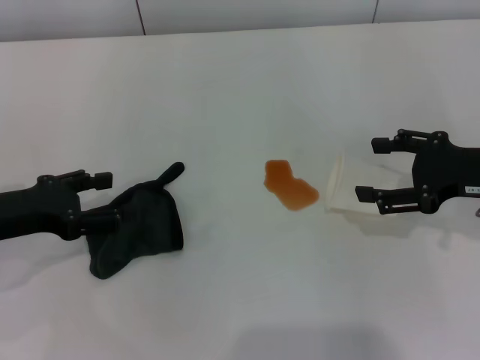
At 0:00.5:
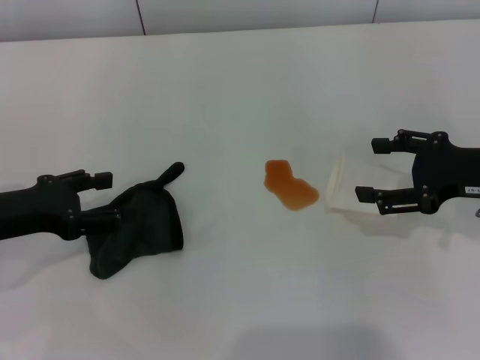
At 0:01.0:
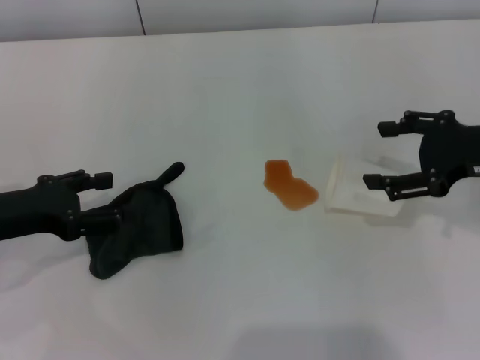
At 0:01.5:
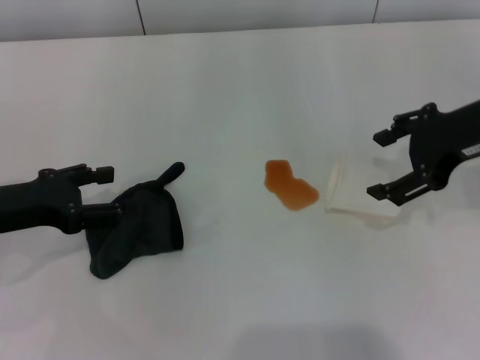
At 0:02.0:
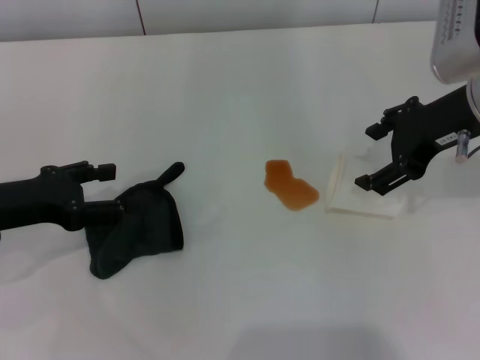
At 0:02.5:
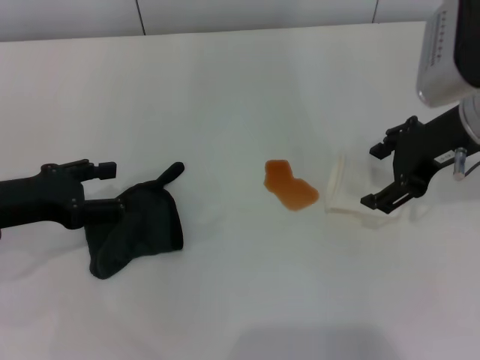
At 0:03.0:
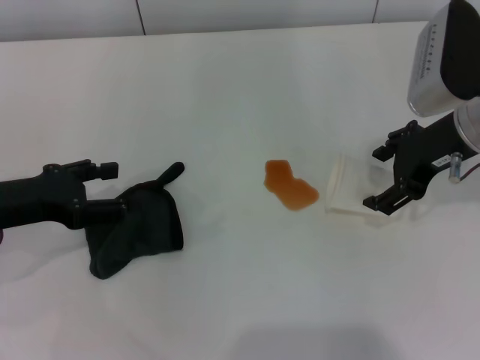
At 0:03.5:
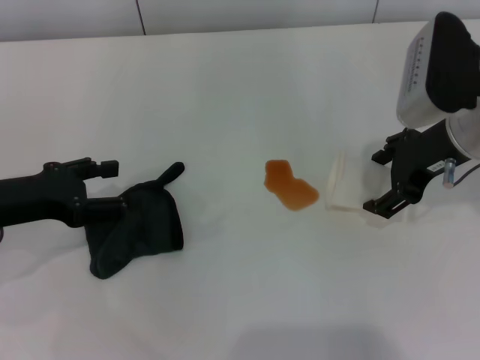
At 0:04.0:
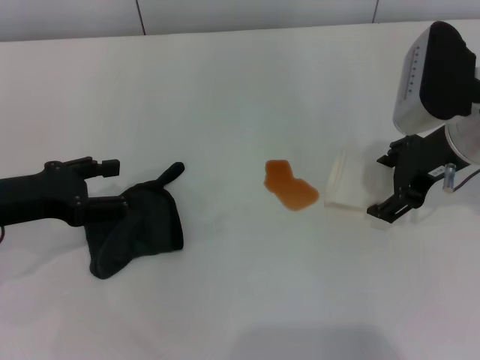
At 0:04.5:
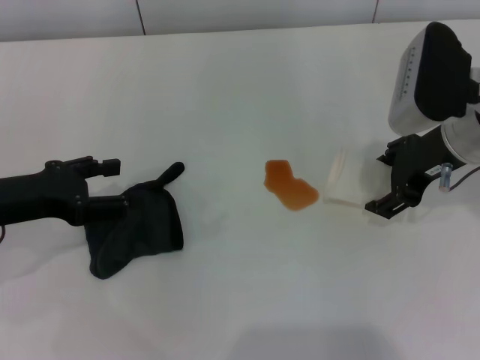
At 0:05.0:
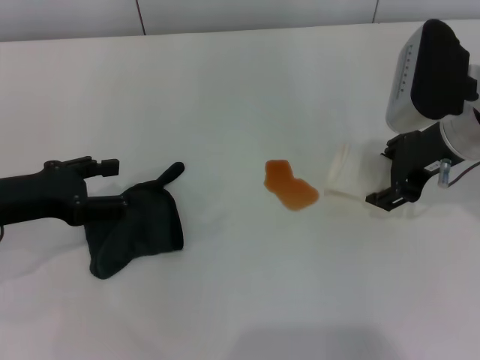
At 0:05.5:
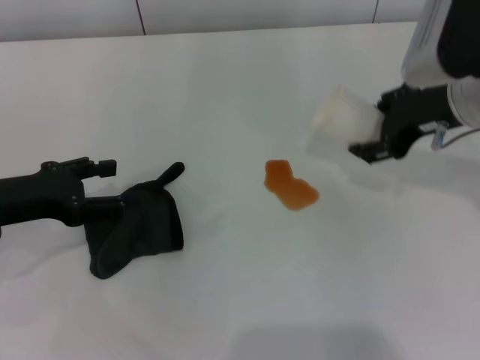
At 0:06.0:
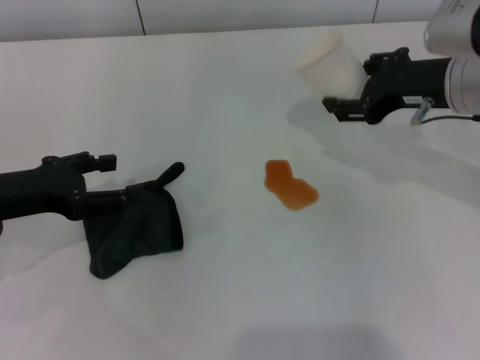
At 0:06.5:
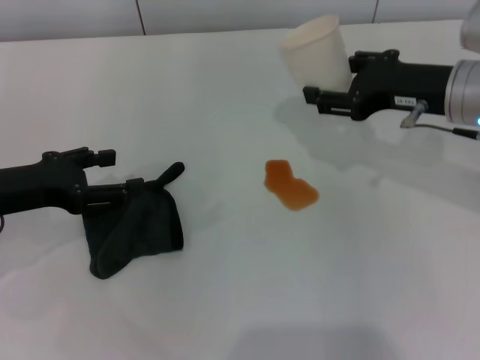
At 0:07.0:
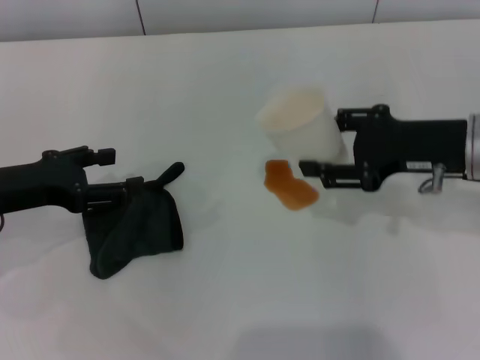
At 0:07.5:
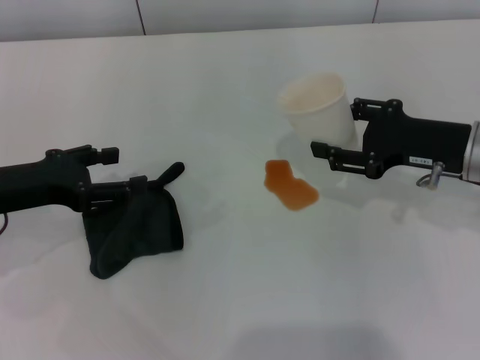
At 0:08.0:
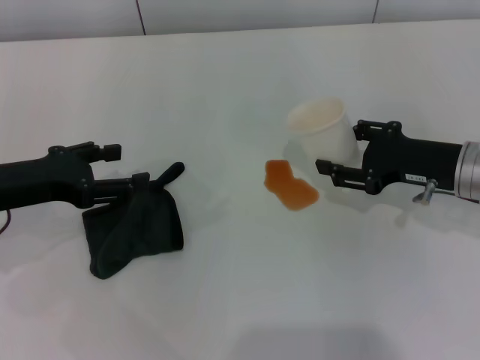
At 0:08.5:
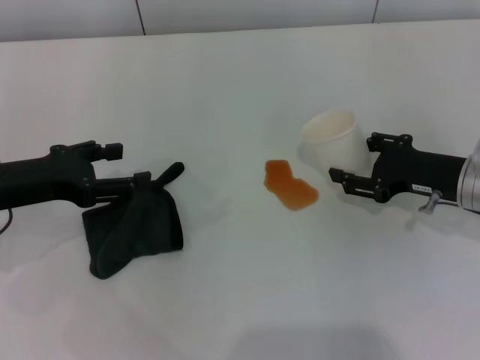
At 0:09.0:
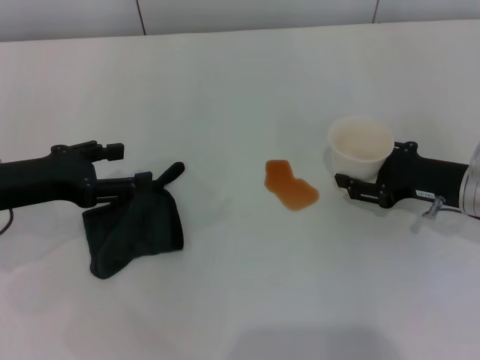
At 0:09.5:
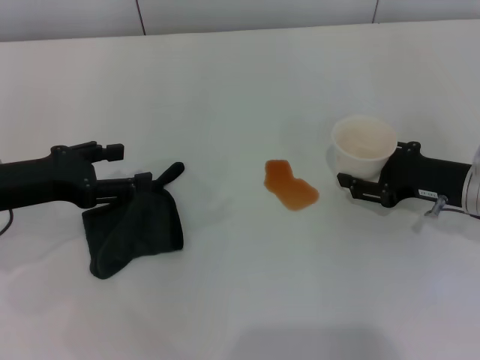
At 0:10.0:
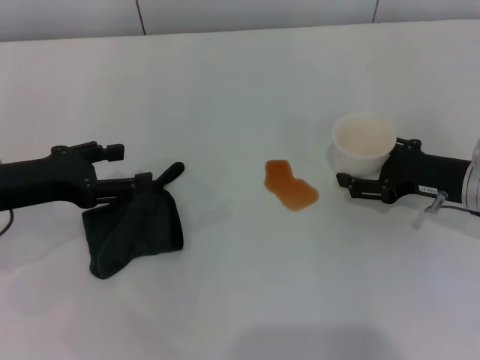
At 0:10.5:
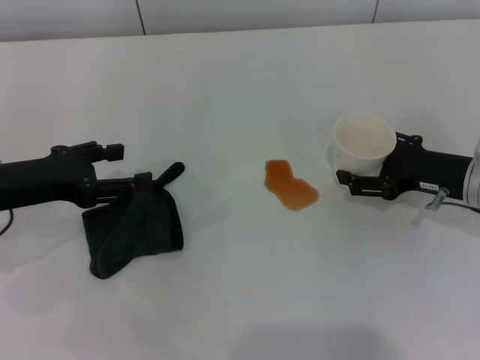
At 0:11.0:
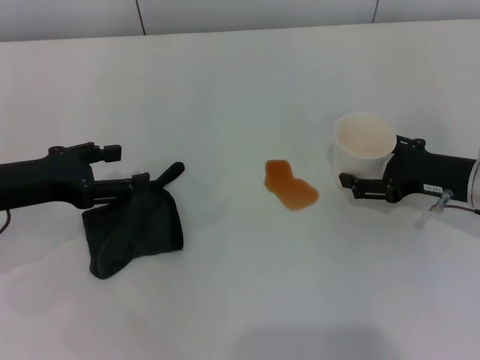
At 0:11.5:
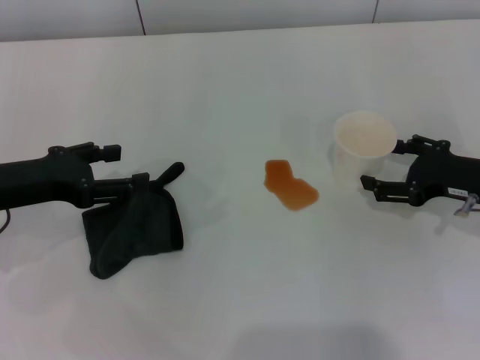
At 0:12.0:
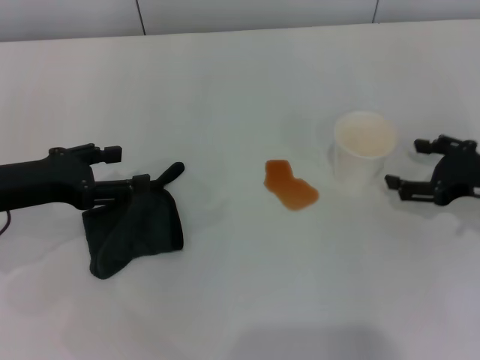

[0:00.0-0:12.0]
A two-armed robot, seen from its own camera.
Step, 0:00.0 to 0:04.5: Grasp the paper cup with the right gripper.
Step, 0:05.0 to 0:12.0: Stand the paper cup upright with the right gripper.
0:00.0 to 0:02.0: The right gripper shifts roughly 10 cm upward and to the left.
0:02.0 to 0:04.0: There are only small adjustments of the grippers.
0:04.0 to 0:06.0: The right gripper closes up.
0:06.0 to 0:08.0: The right gripper shifts approximately 10 cm downward.
0:08.0 to 0:10.0: The grippers stay close to where they were, moving slightly.
0:10.0 to 0:12.0: The right gripper shifts by some 5 cm, and opens its fingers.

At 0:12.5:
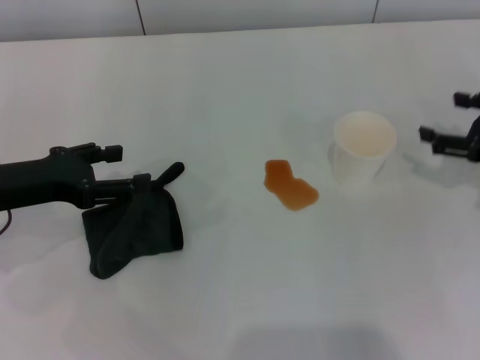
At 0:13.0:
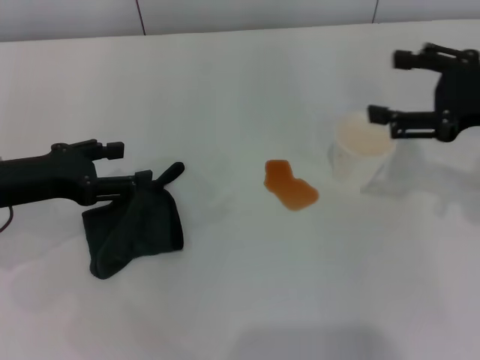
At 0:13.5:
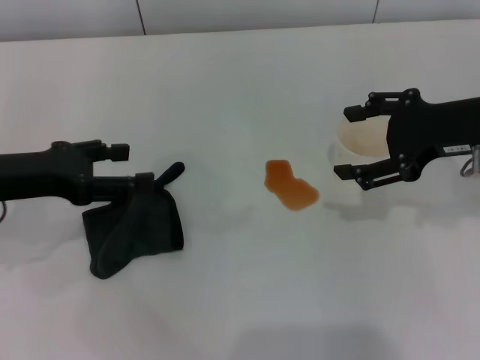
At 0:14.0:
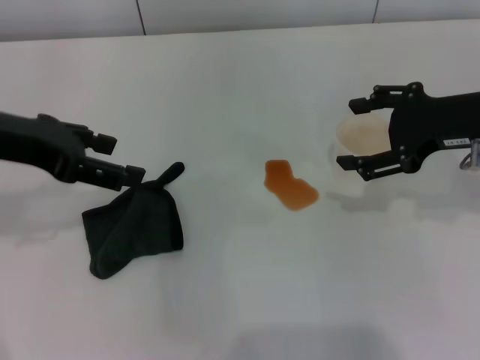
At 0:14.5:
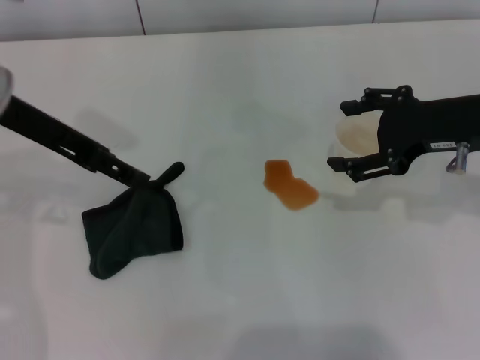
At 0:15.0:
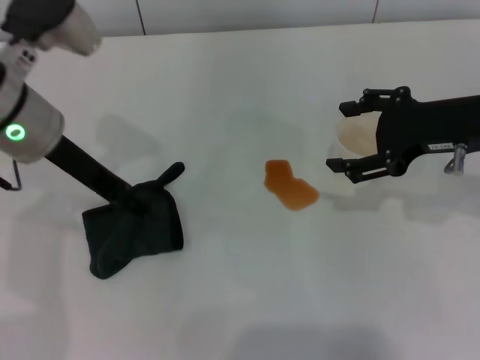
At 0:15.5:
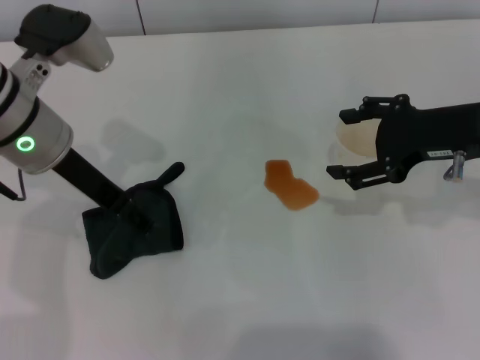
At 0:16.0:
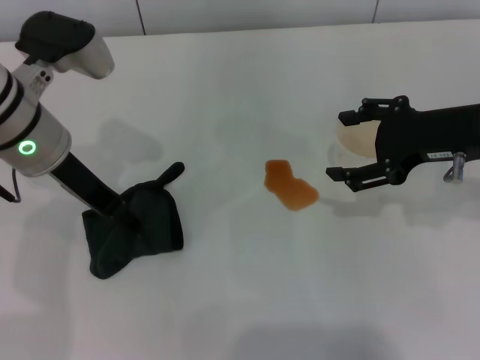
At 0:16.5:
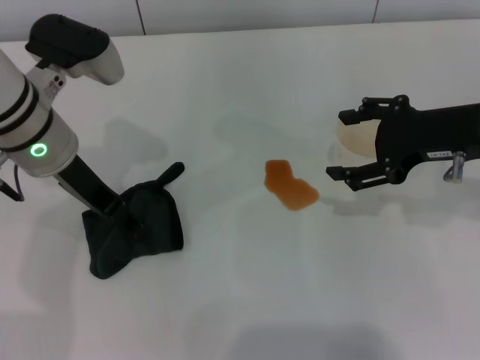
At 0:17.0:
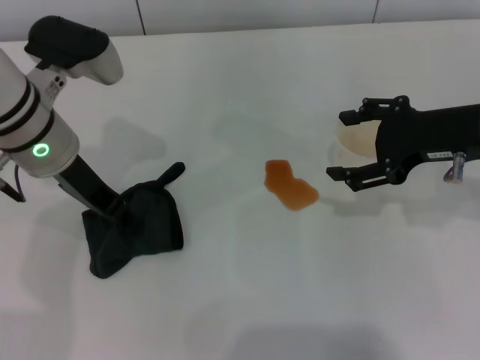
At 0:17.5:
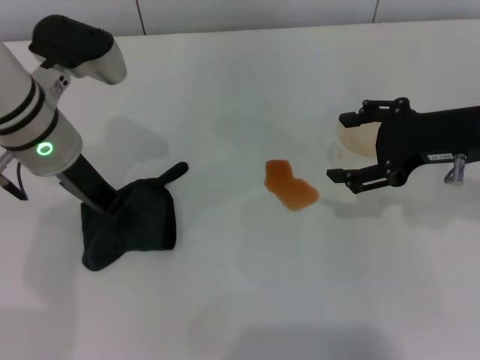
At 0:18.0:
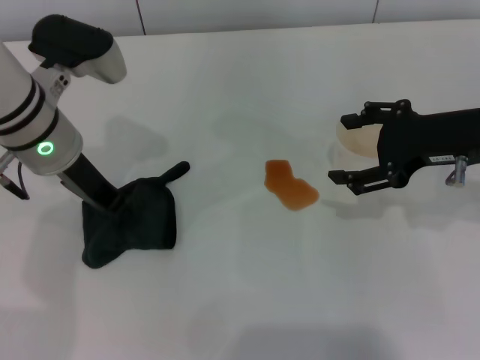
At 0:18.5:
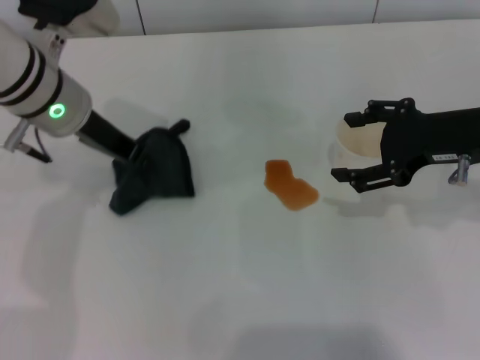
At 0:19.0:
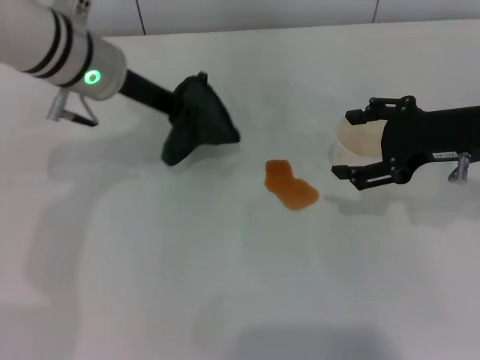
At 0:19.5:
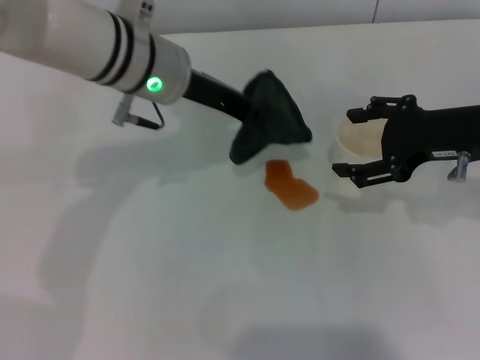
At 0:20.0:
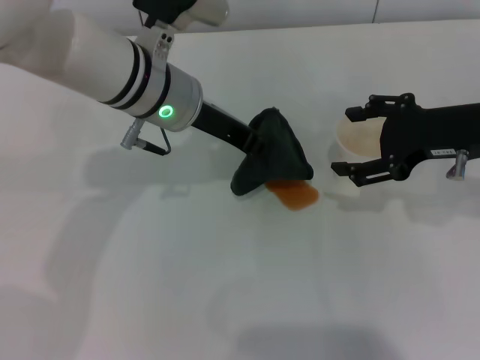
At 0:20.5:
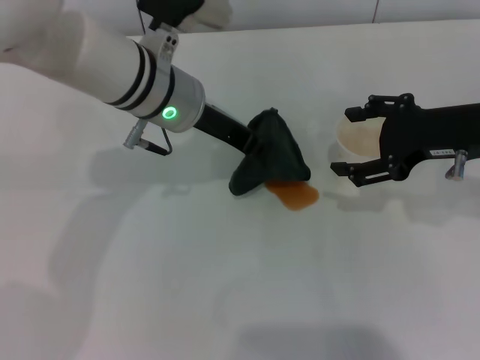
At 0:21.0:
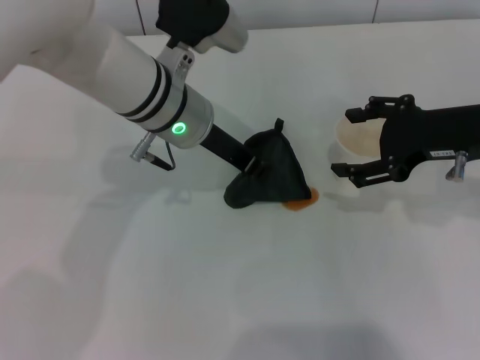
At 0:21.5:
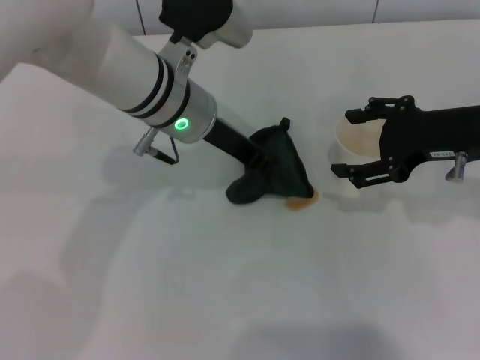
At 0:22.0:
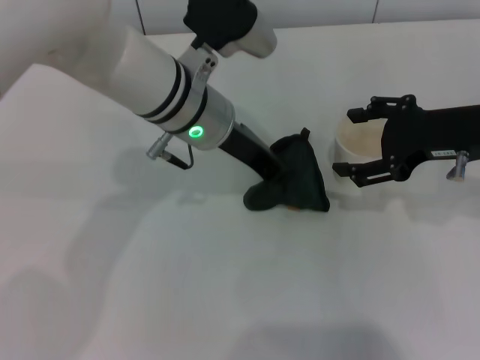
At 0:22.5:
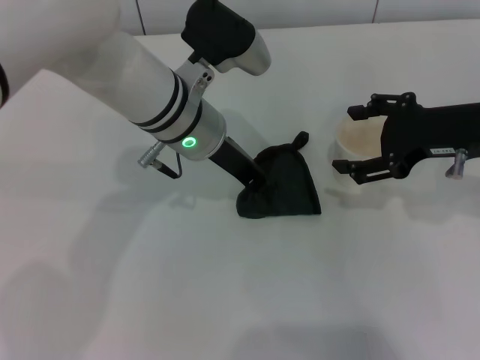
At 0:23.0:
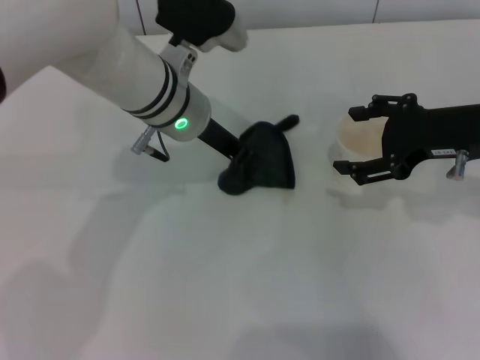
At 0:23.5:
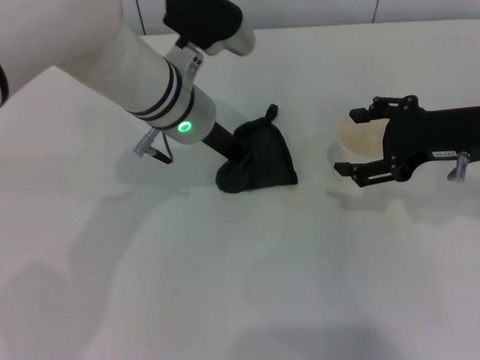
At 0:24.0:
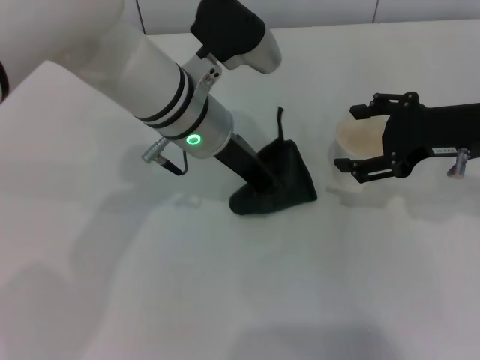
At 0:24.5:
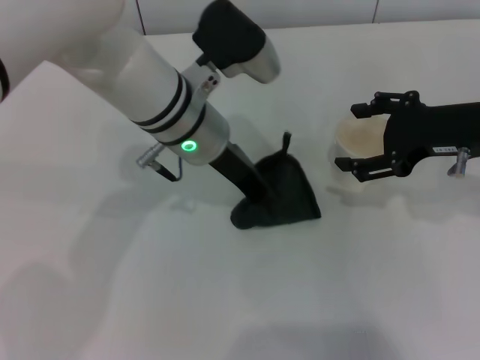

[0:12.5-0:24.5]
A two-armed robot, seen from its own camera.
Step, 0:12.5 to 0:18.0: Grasp the rag with the left gripper.
0:12.5 to 0:14.5: The left gripper goes approximately 15 cm upward, to the right and forward. Meanwhile the right gripper is displaced to the left and upward by about 10 cm.
0:14.5 to 0:16.5: The left gripper is displaced downward by about 5 cm.
0:16.5 to 0:18.5: The left gripper closes up.
0:18.5 to 0:20.5: The left gripper shifts roughly 10 cm to the right.
0:20.5 to 0:24.5: The grippers move only a little.

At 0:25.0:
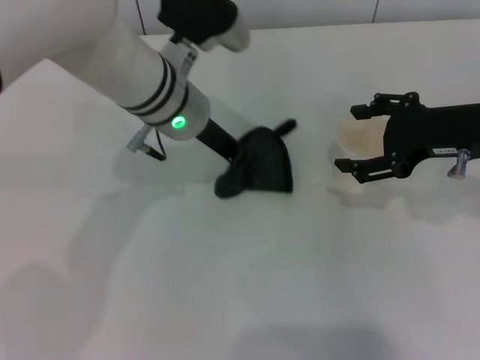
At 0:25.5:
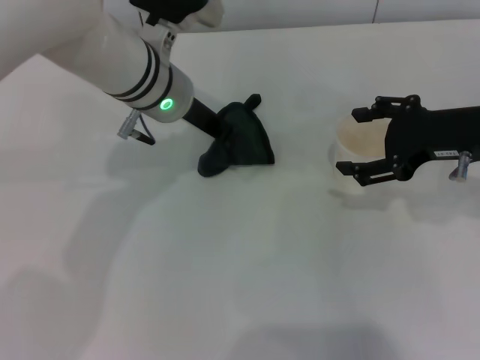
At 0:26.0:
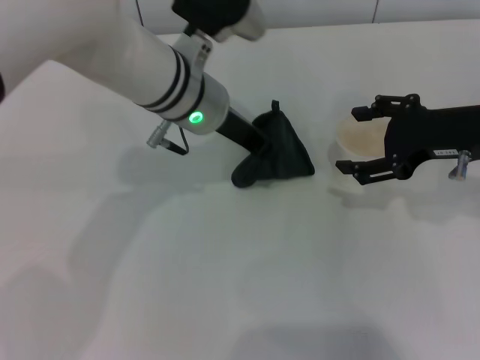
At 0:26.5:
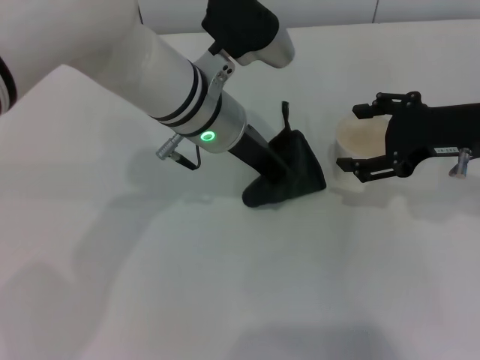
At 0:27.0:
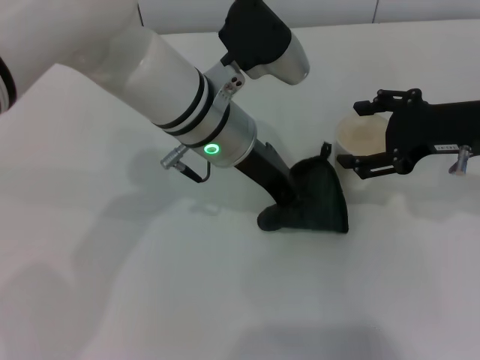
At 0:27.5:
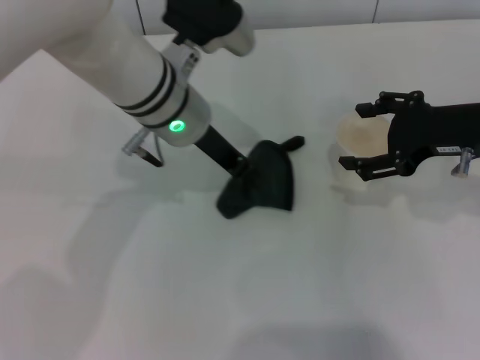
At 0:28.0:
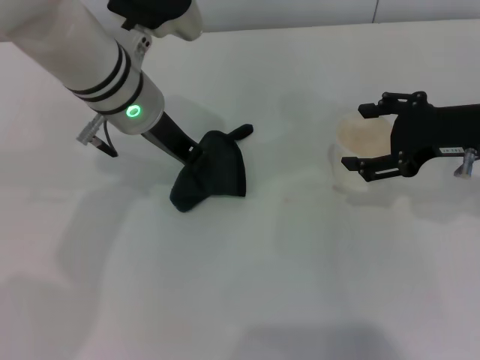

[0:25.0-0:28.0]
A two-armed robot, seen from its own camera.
Step, 0:25.0 to 0:27.5: Wipe the stains off the table with the left gripper.
0:25.0 to 0:26.5: The grippers stay close to where they were, moving slightly.
0:26.5 to 0:28.0: The left gripper is displaced to the left by about 5 cm.
